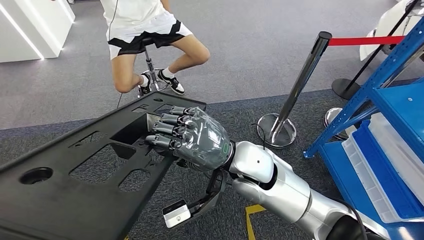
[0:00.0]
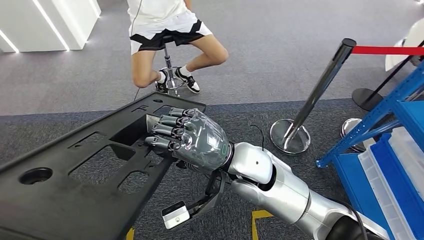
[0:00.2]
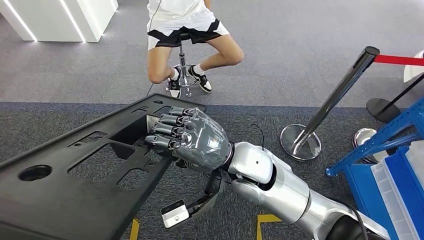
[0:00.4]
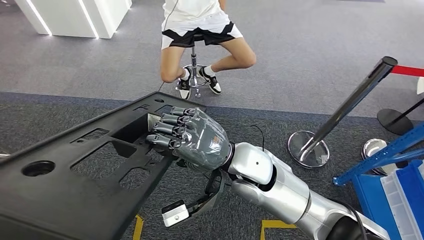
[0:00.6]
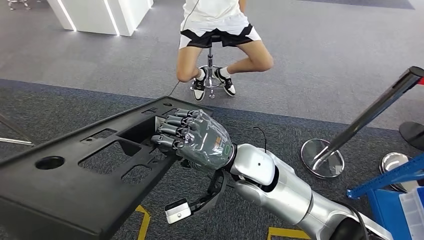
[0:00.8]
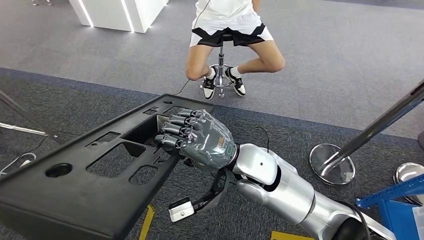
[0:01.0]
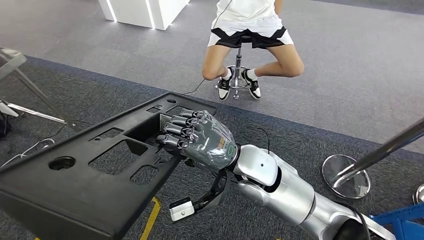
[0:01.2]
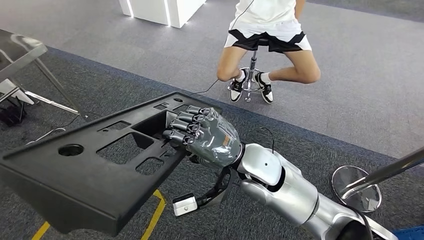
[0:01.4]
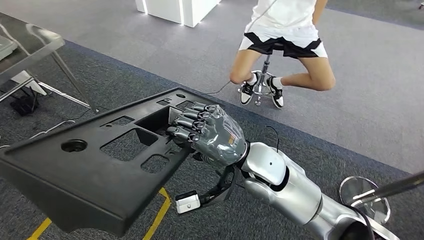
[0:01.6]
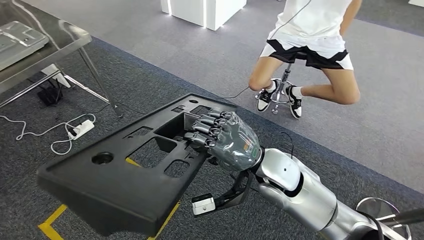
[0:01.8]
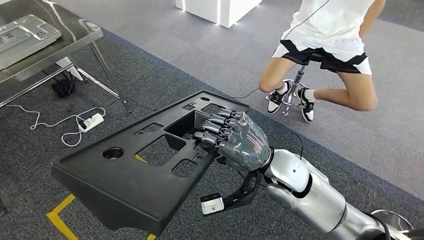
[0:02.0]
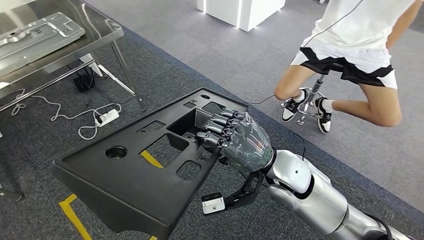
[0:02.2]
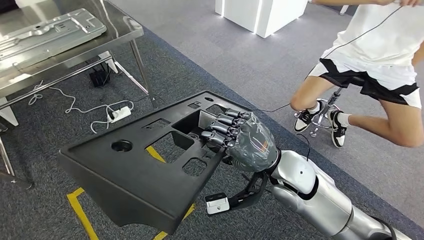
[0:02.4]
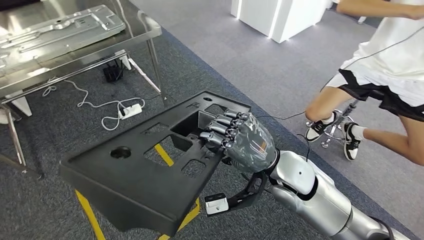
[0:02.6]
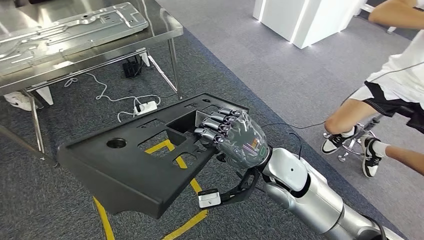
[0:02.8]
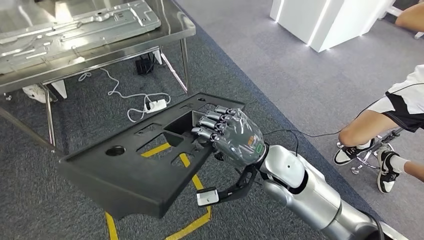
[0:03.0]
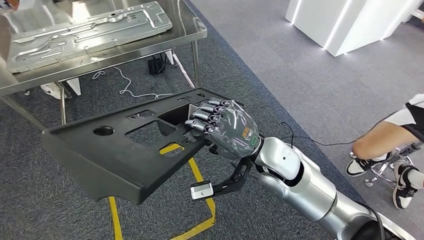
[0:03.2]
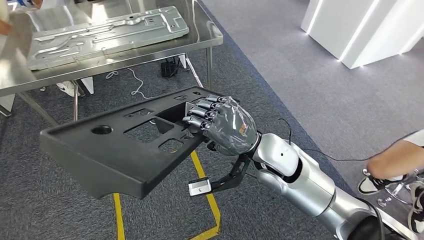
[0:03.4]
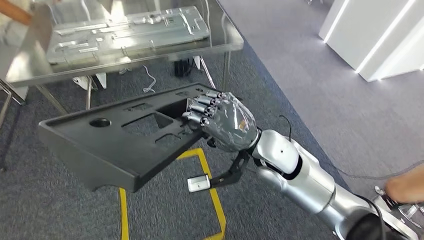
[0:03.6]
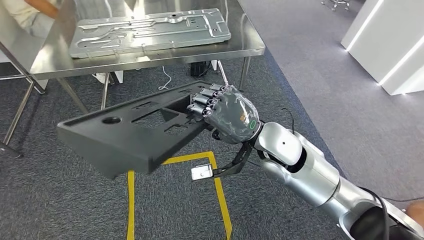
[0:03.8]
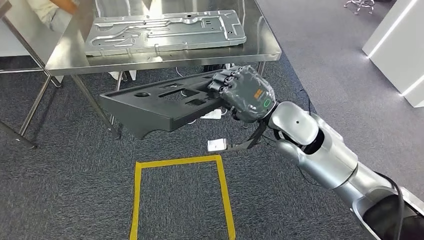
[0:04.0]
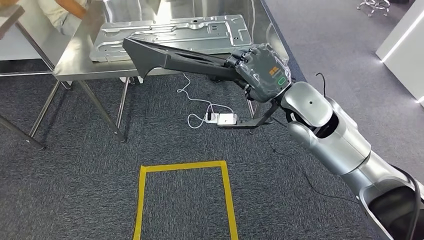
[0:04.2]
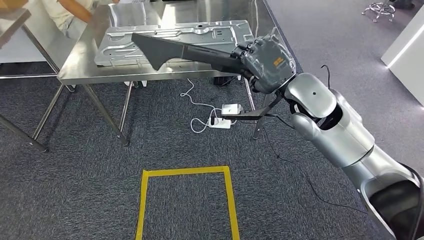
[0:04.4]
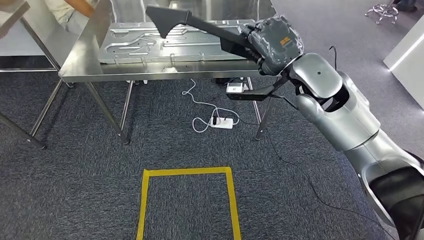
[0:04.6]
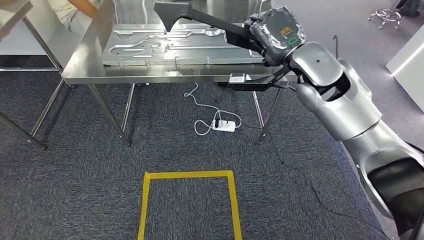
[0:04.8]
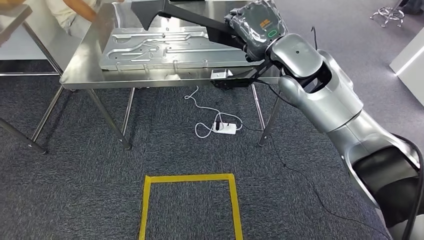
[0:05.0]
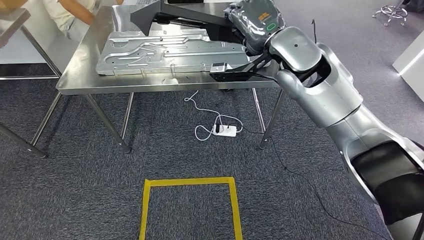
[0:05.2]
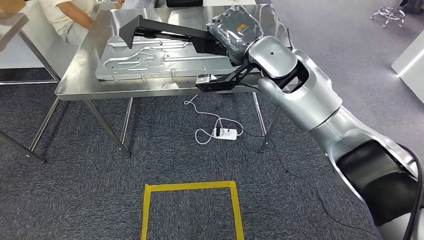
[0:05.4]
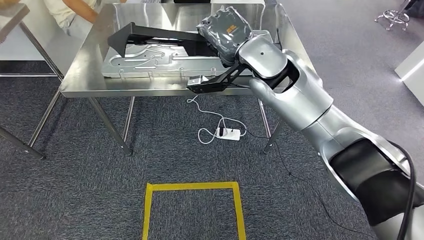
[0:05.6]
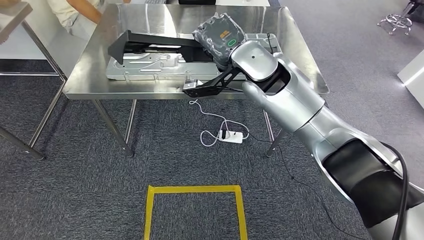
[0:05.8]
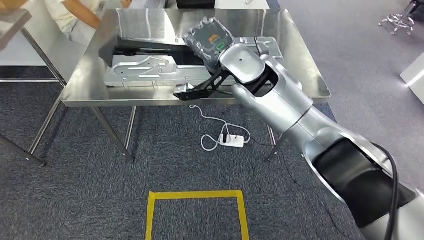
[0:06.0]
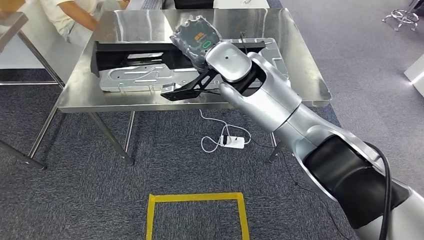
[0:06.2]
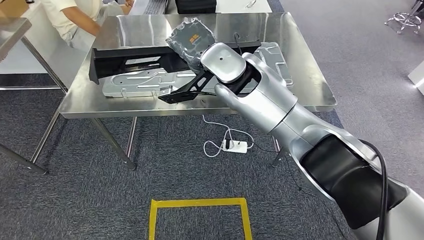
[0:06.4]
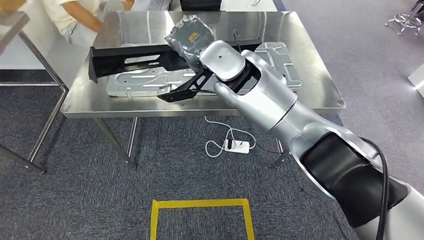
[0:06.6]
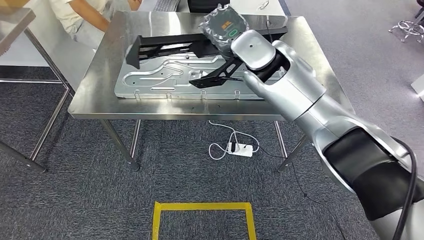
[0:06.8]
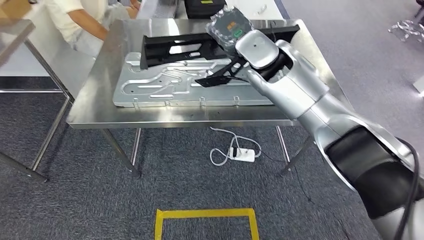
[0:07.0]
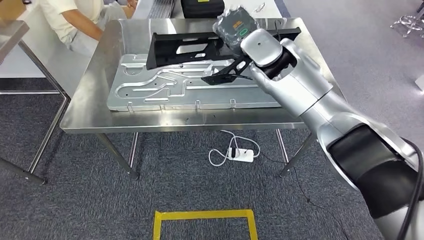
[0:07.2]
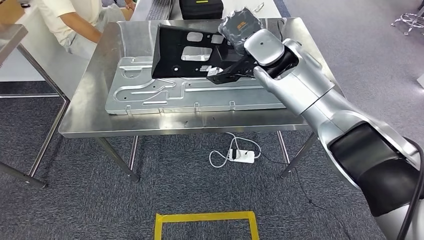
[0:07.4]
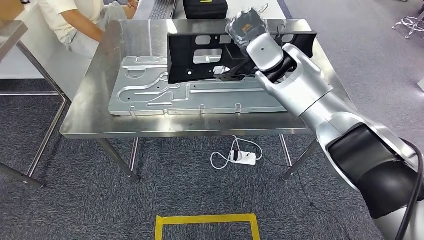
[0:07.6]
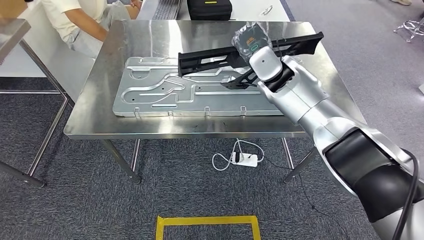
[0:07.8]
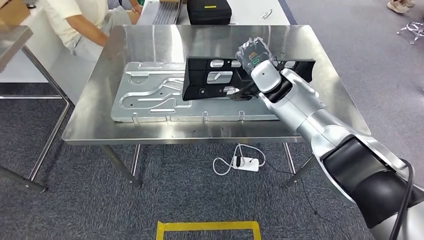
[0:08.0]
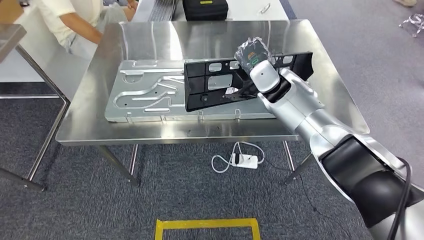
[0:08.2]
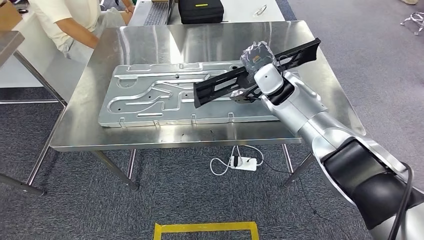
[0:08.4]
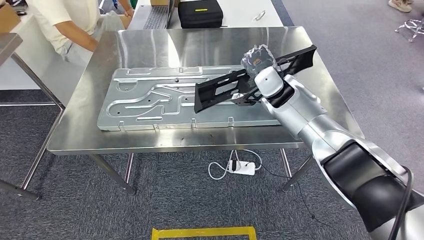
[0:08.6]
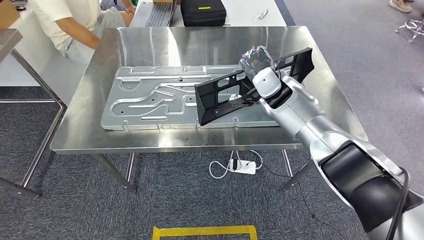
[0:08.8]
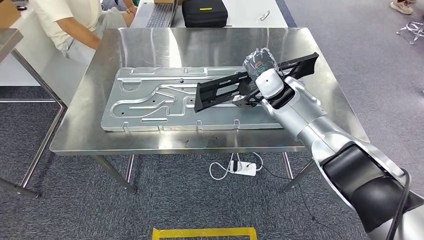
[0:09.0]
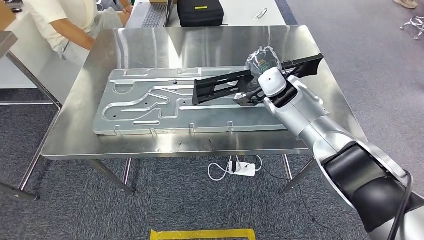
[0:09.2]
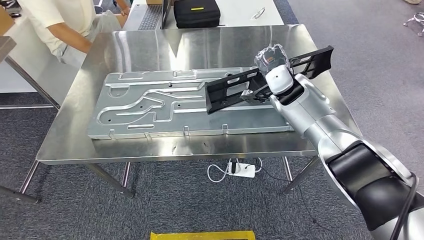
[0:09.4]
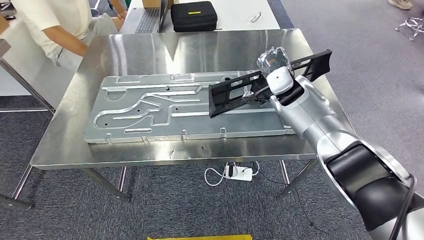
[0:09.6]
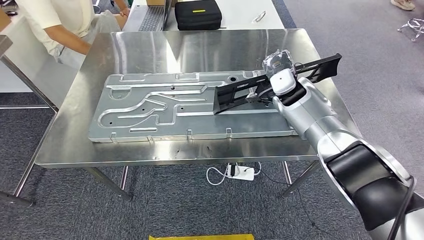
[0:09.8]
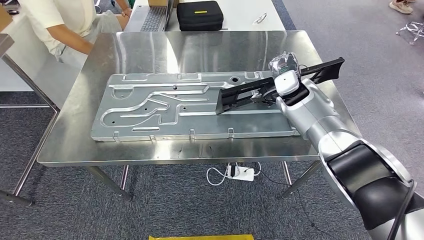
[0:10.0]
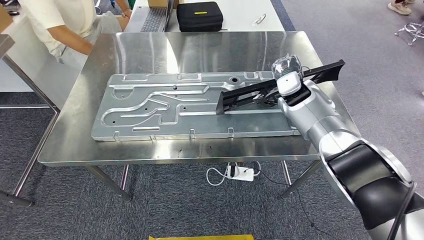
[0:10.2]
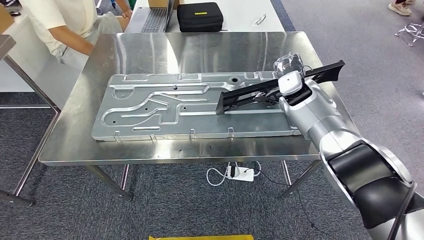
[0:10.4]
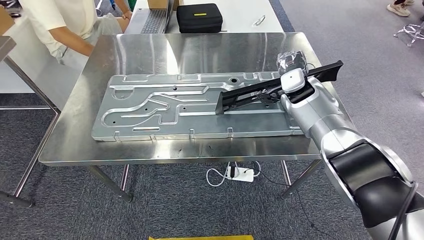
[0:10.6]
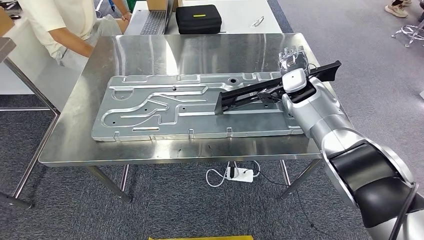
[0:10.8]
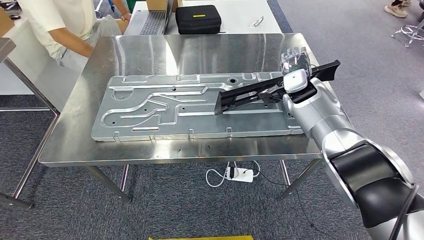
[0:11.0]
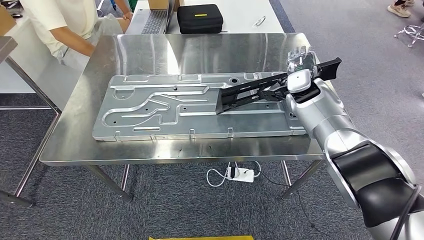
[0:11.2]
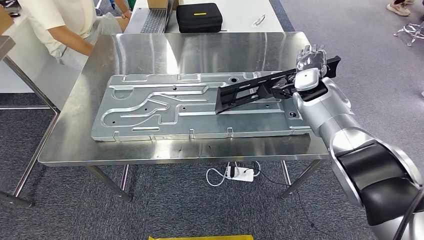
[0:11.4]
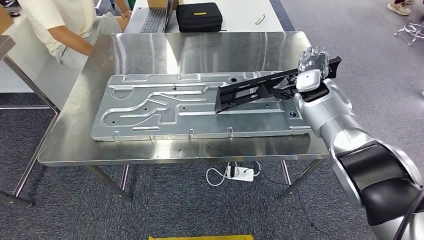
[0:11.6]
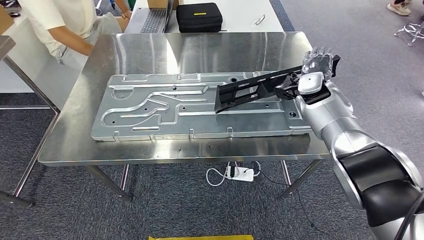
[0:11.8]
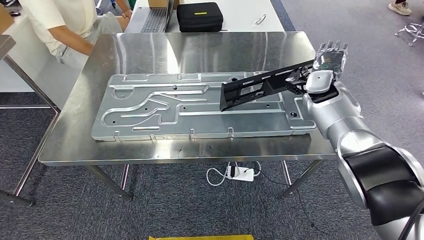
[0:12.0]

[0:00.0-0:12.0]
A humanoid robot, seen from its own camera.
Step, 0:00.0 to 0:06.4: Move the large material to the workbench.
0:10.4 to 0:12.0: The right hand moves to the right, some 5 cm.

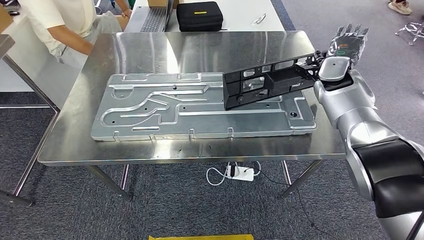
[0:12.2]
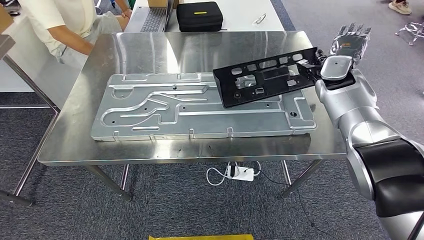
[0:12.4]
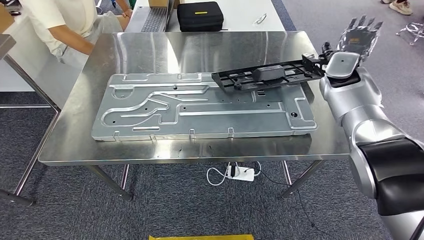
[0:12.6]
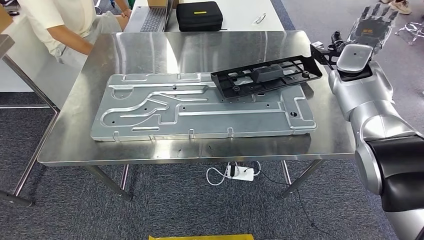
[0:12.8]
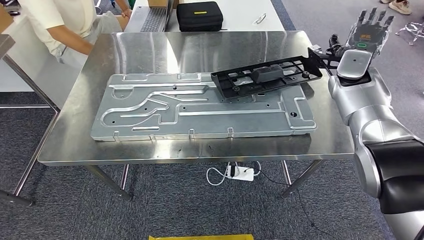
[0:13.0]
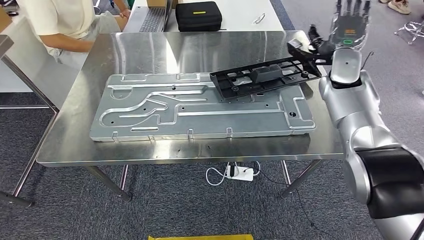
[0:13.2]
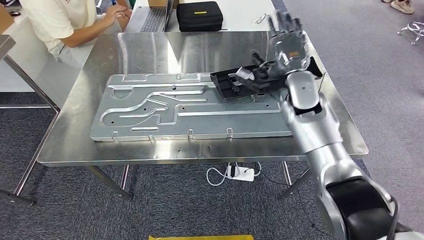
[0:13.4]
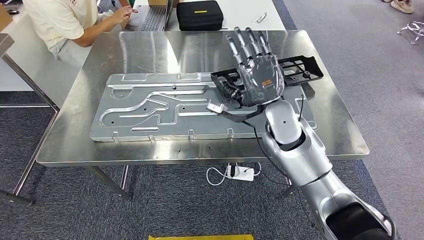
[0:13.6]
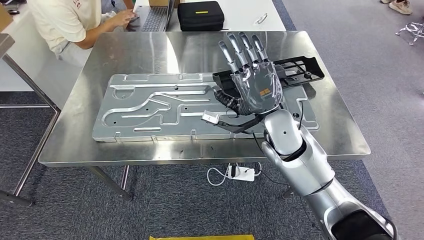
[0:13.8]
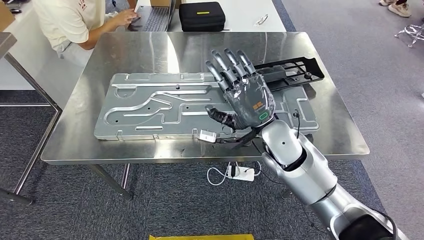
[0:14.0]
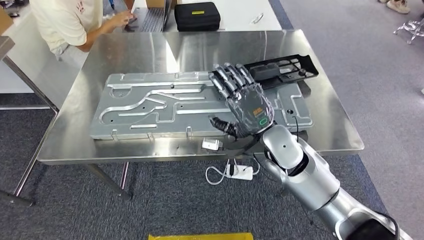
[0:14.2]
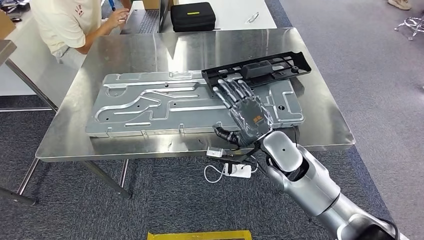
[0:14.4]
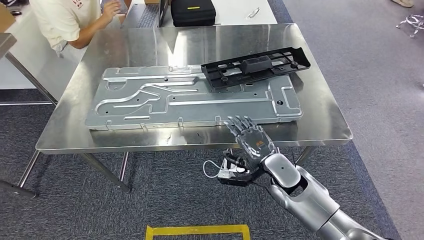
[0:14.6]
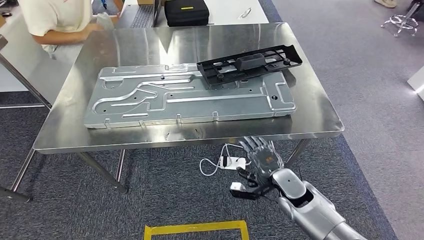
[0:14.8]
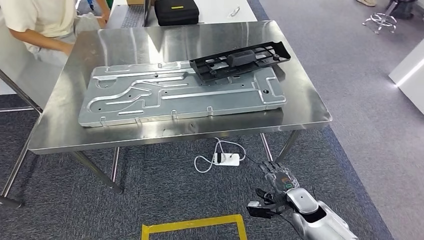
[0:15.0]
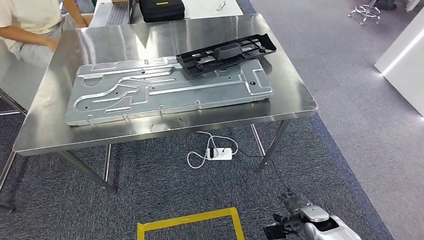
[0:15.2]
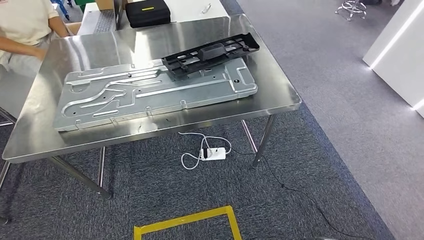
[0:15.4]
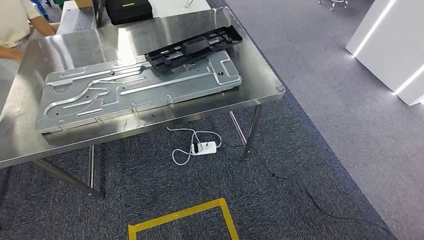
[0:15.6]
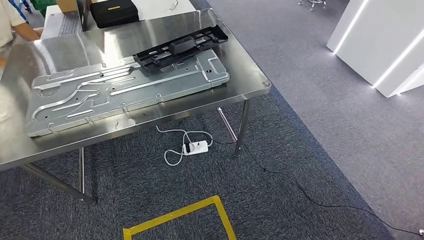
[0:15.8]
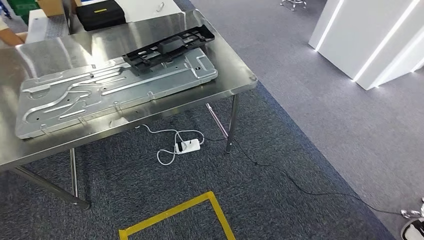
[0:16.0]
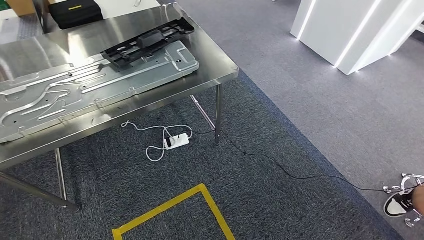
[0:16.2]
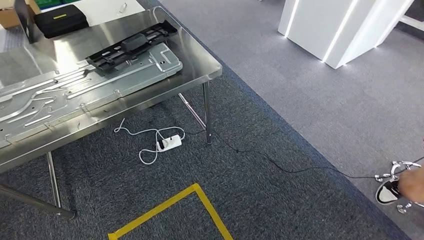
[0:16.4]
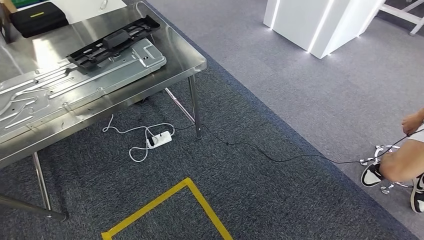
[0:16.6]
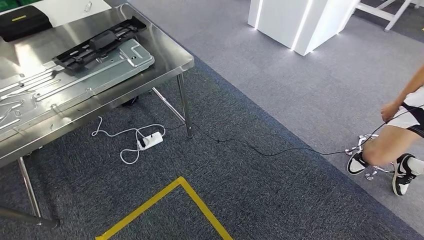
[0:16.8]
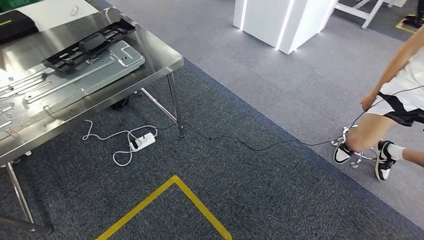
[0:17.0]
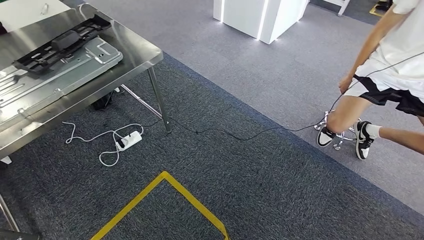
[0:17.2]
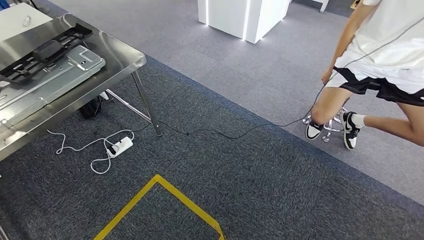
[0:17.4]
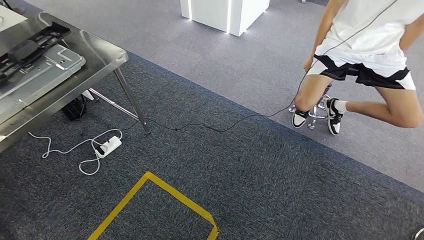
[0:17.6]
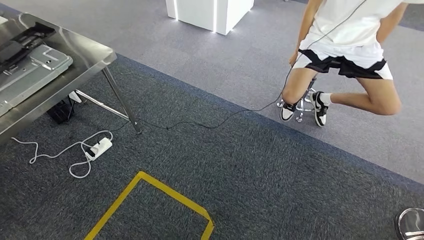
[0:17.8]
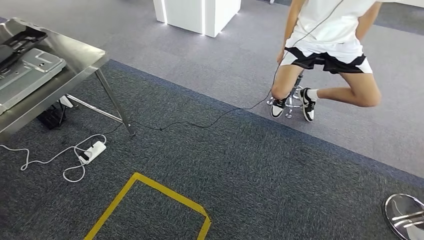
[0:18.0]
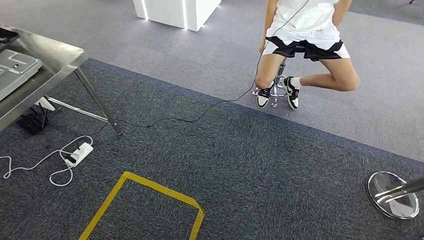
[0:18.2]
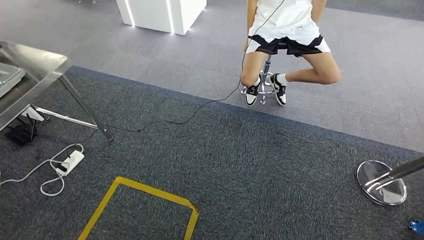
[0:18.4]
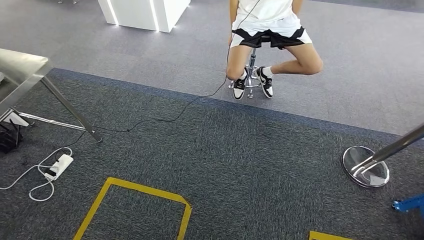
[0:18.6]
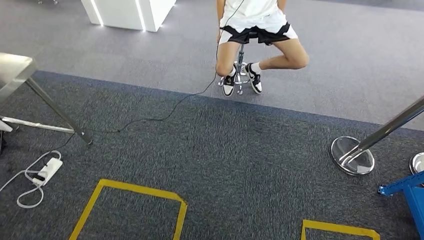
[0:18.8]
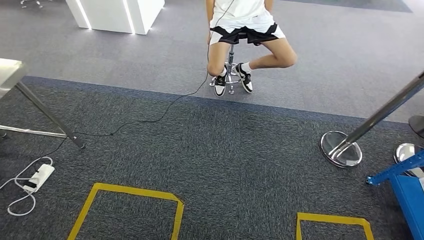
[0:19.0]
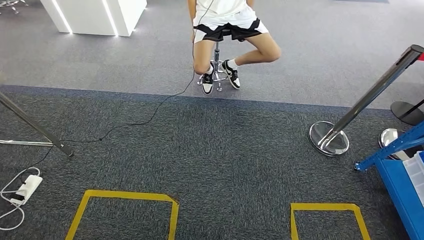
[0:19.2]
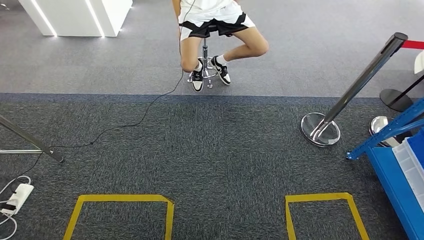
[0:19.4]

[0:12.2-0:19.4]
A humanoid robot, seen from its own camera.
Step, 0:12.2 to 0:14.4: Insert the large material into the corresponding slot on the workbench.
